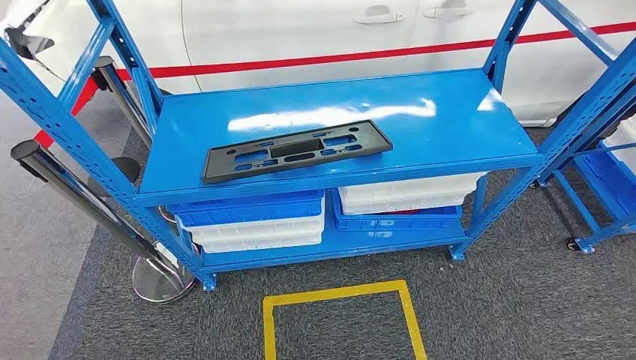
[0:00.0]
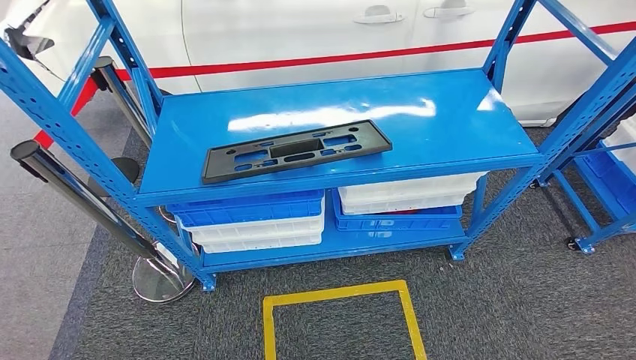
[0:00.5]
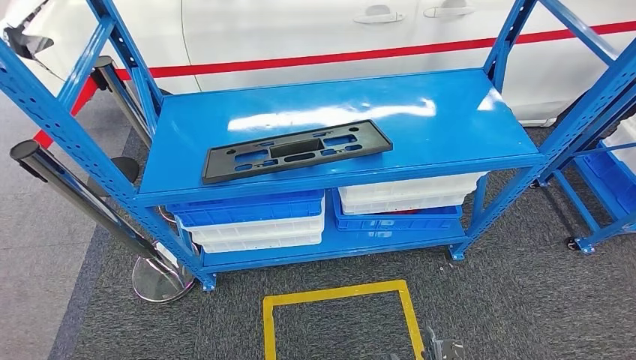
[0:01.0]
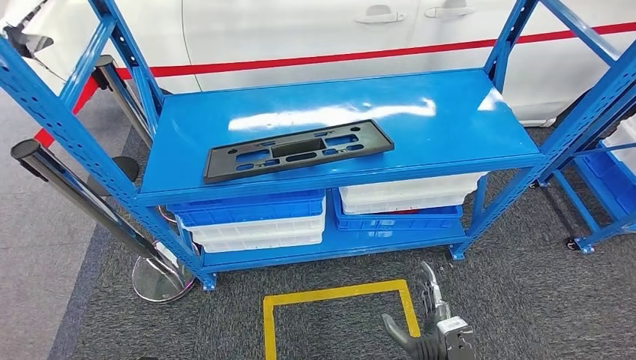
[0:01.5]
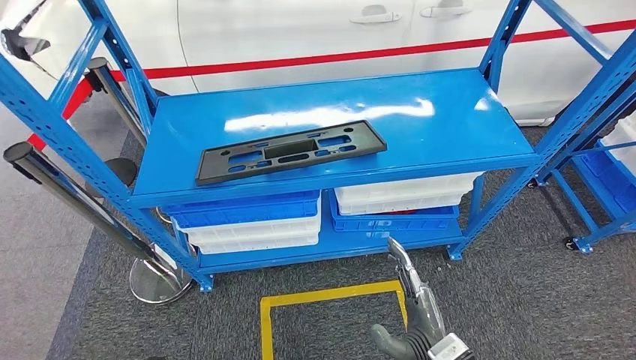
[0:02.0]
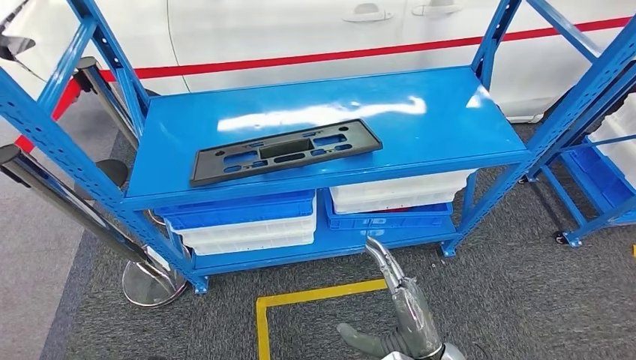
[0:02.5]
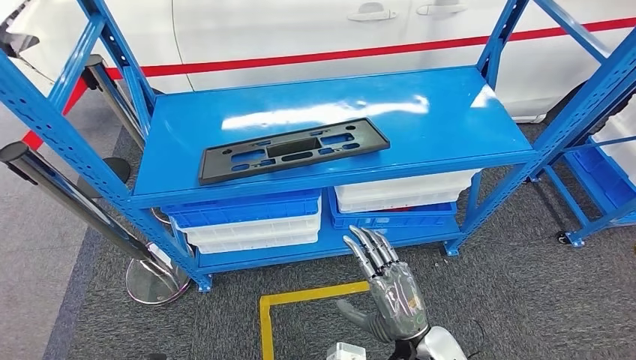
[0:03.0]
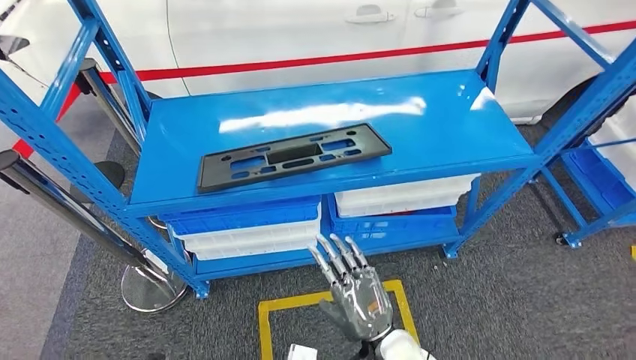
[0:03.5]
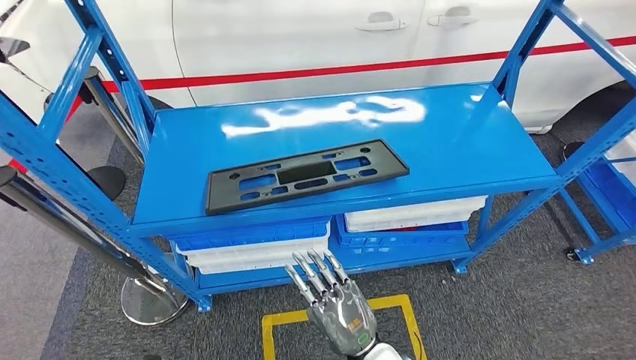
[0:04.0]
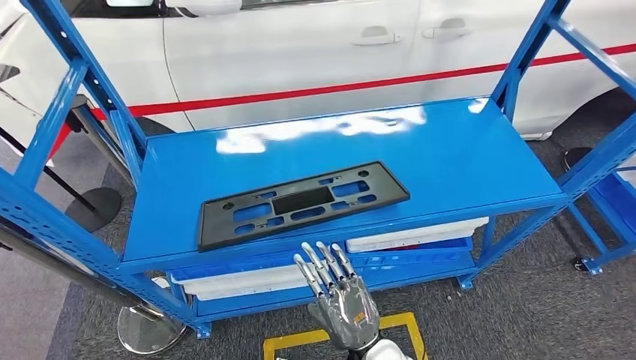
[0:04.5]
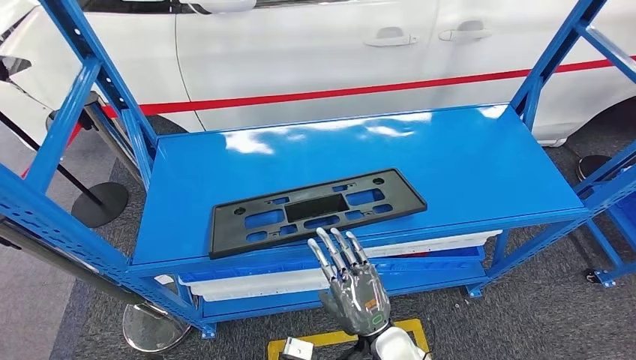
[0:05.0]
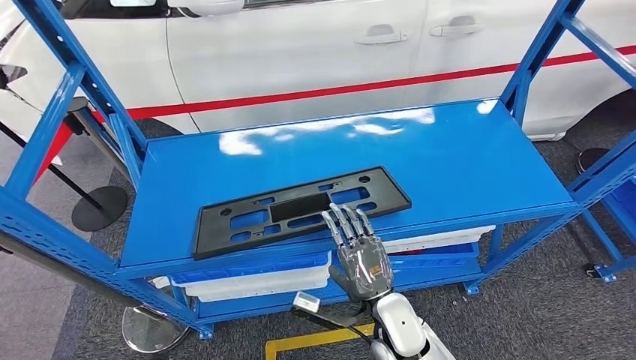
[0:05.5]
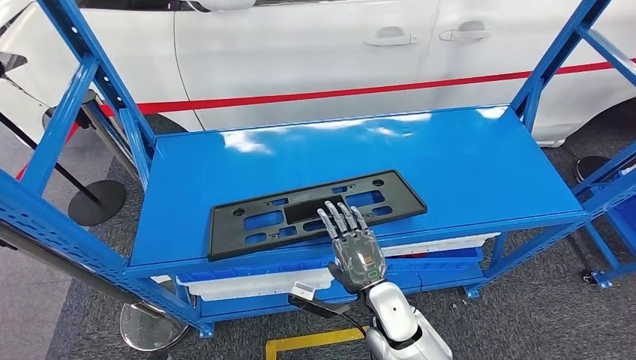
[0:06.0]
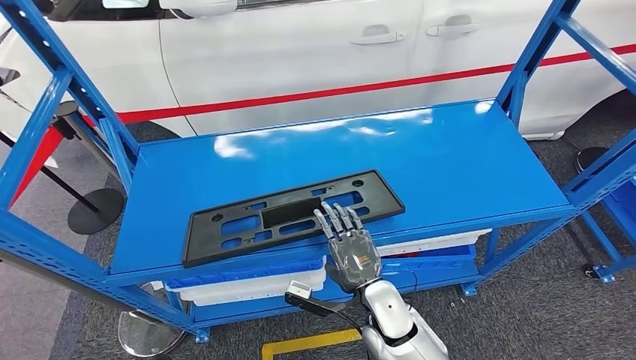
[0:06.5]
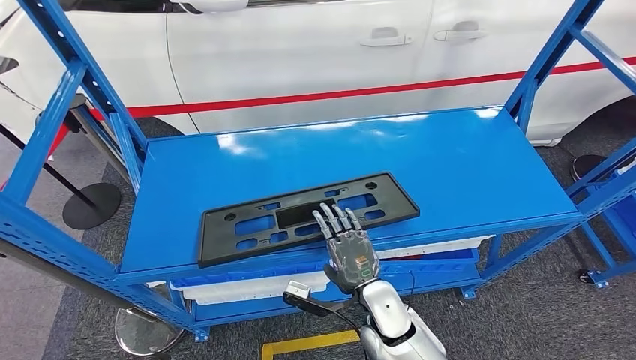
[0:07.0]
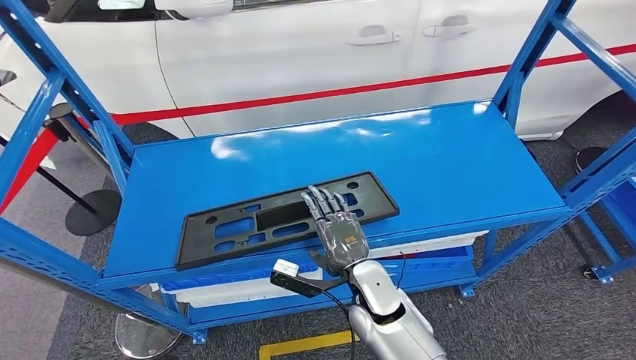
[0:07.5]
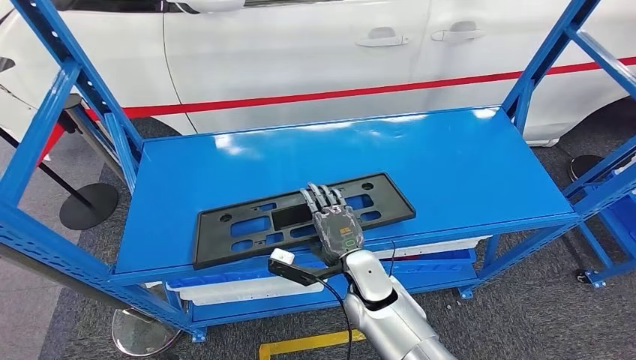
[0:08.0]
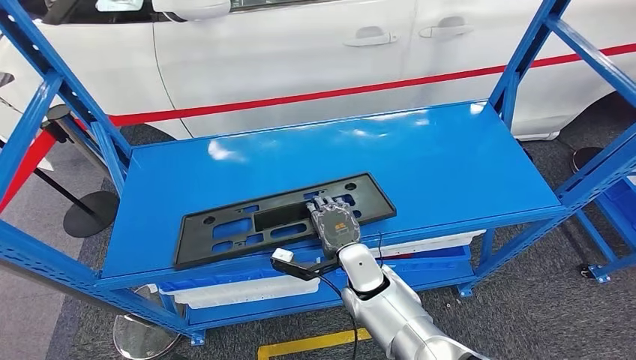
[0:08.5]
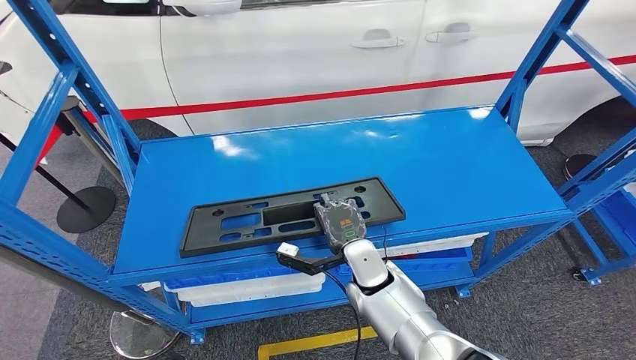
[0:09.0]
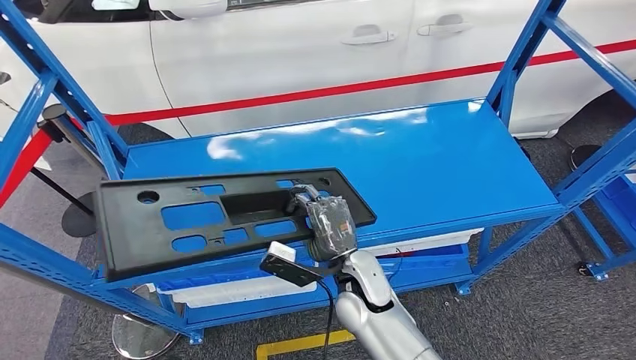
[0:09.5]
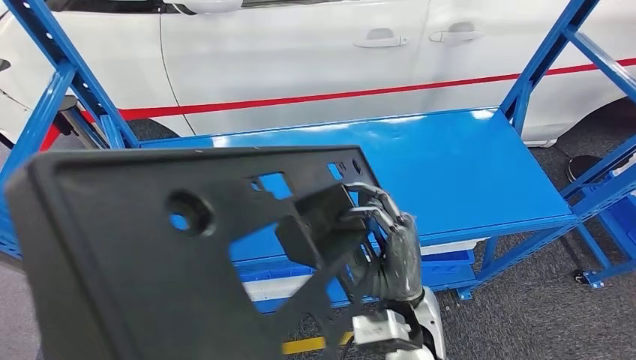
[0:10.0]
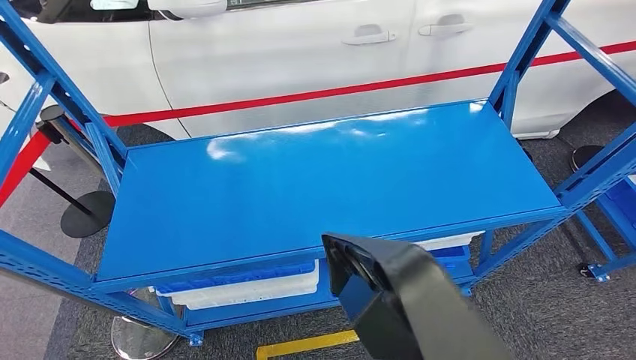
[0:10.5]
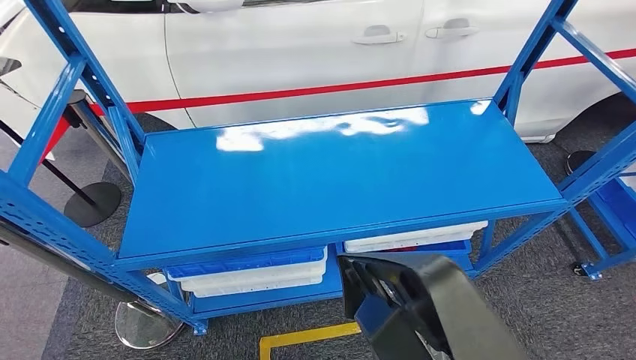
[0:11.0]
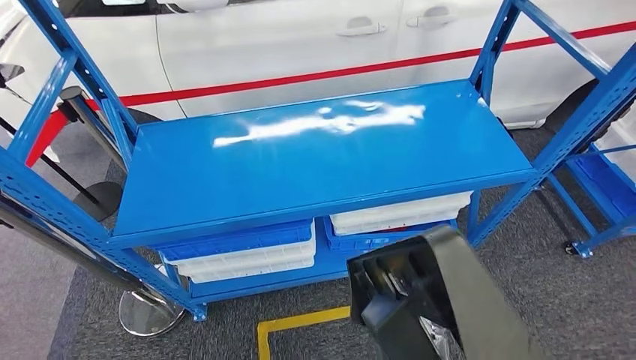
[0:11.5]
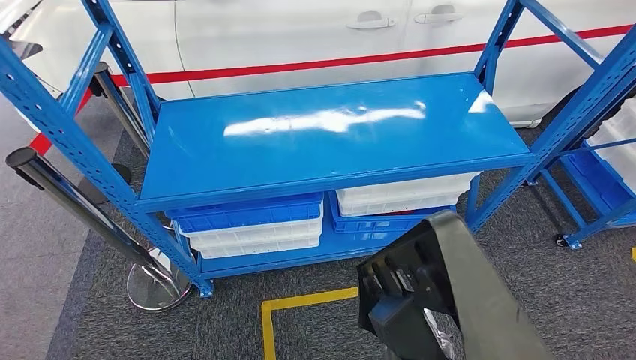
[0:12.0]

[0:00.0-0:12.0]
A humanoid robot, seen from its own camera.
Step, 0:00.0 to 0:11.0: Pick up the large material from the shelf.

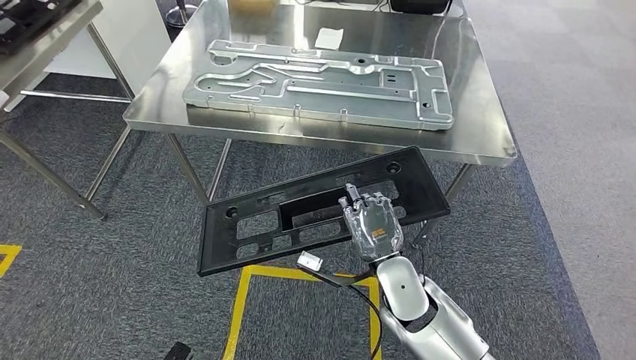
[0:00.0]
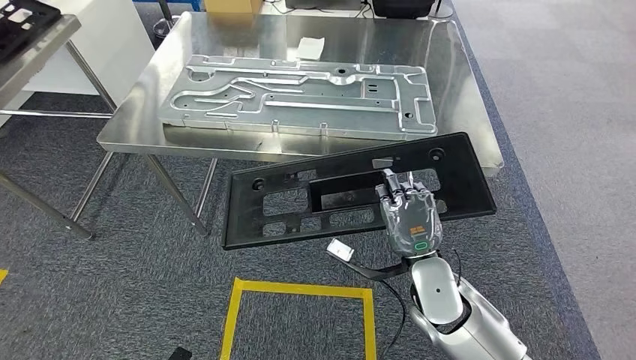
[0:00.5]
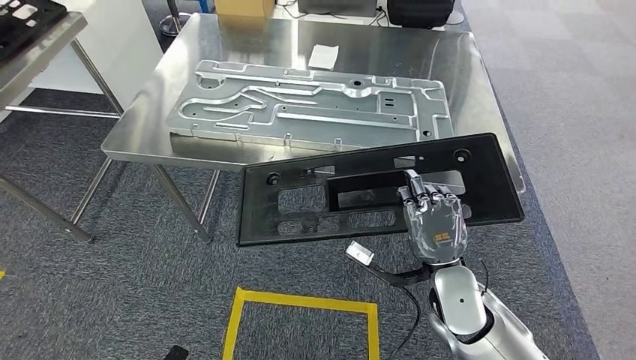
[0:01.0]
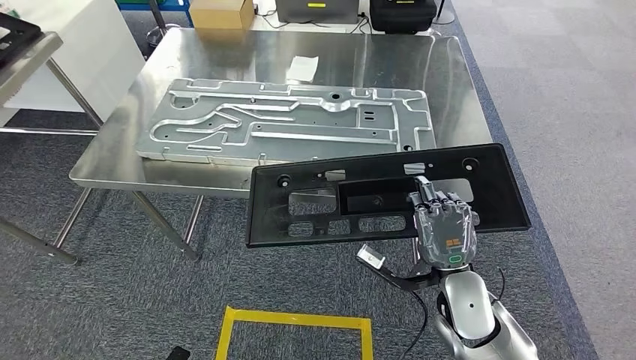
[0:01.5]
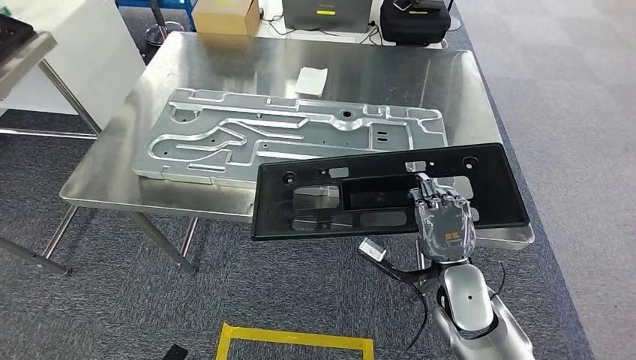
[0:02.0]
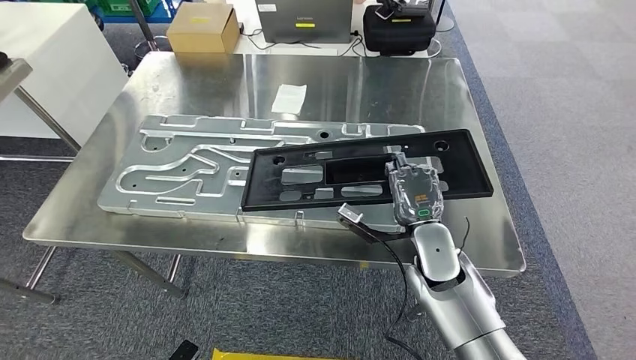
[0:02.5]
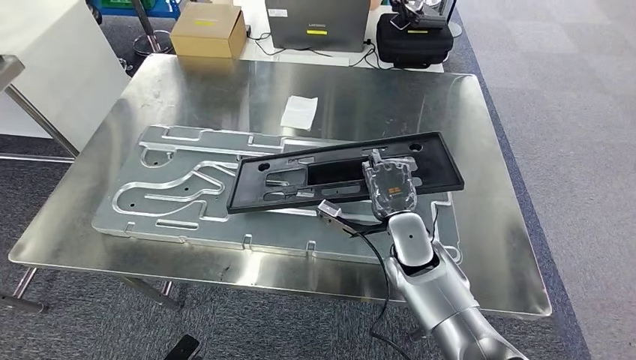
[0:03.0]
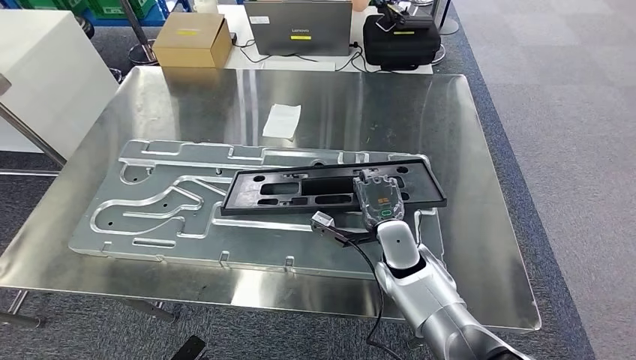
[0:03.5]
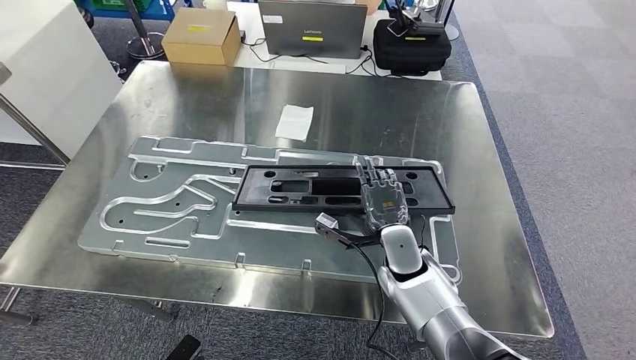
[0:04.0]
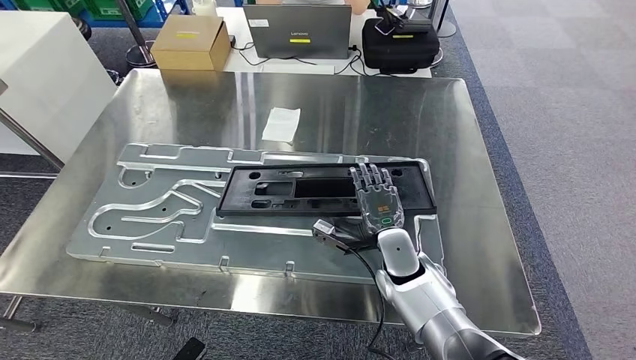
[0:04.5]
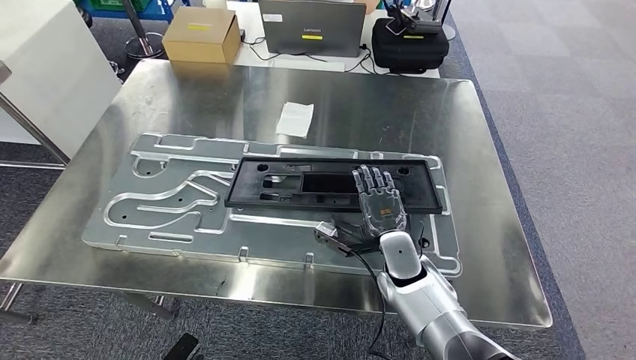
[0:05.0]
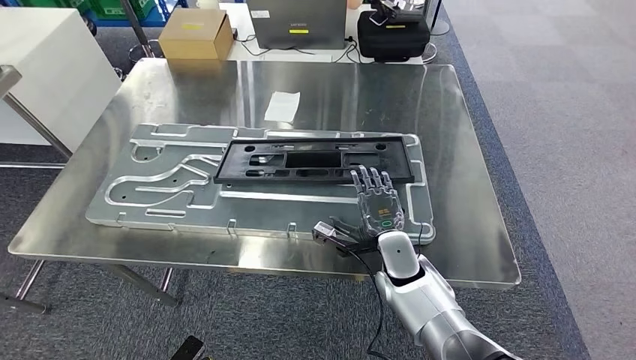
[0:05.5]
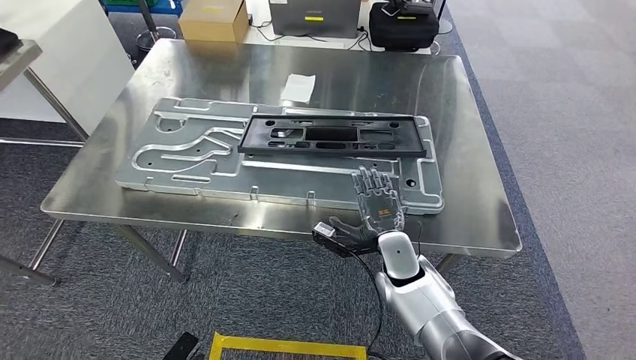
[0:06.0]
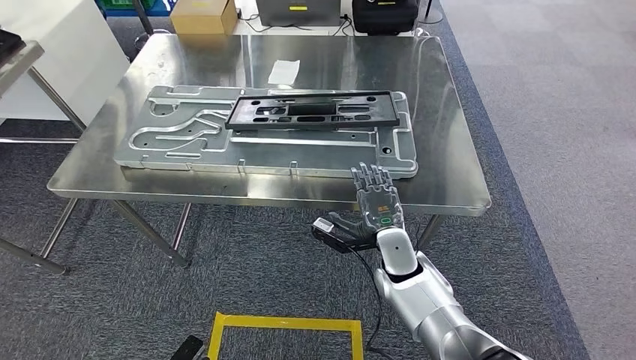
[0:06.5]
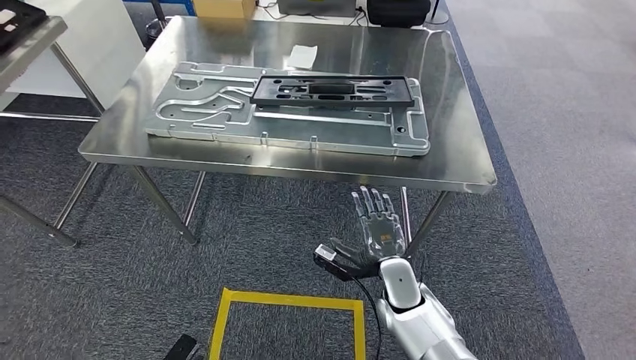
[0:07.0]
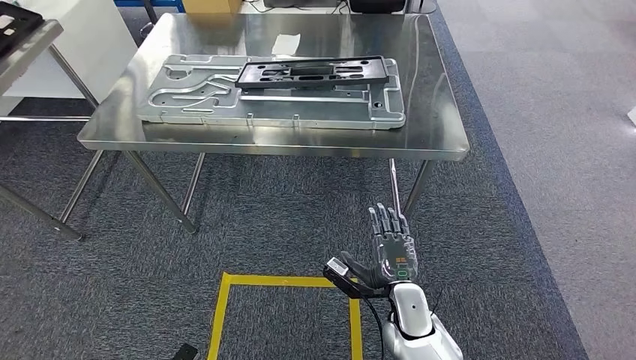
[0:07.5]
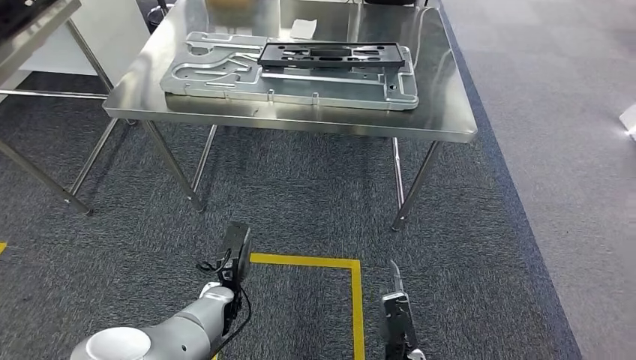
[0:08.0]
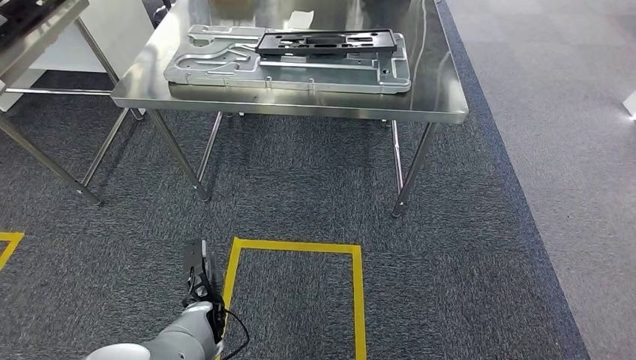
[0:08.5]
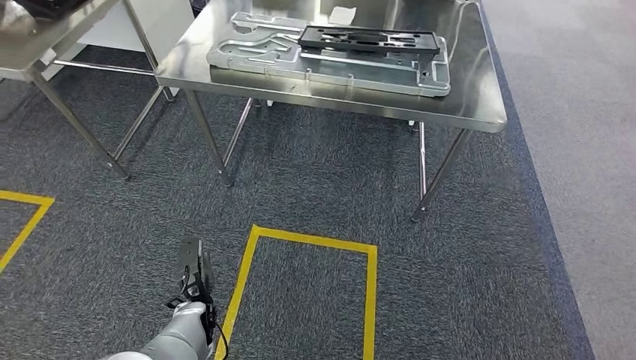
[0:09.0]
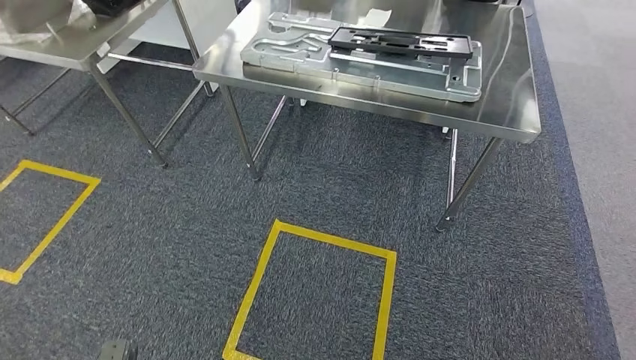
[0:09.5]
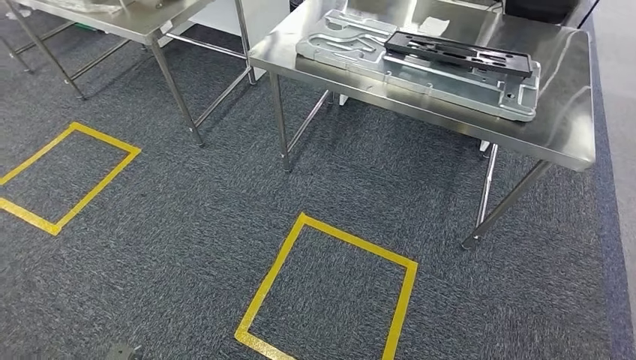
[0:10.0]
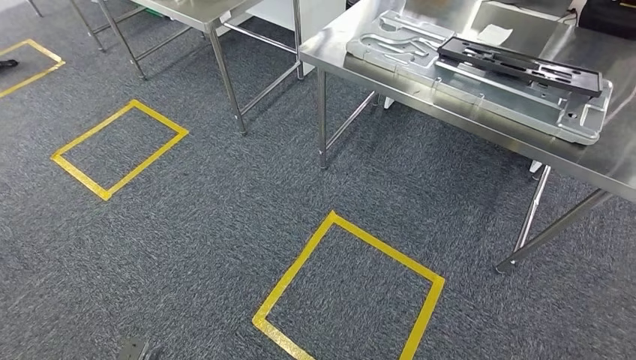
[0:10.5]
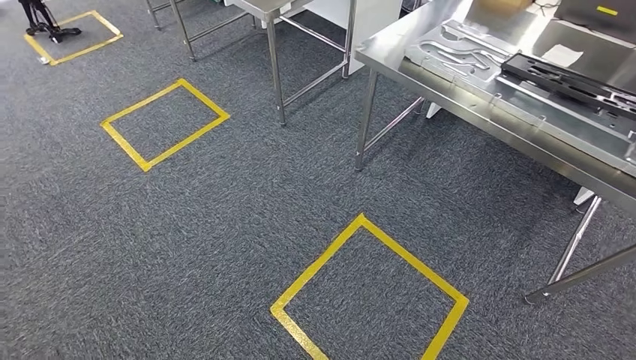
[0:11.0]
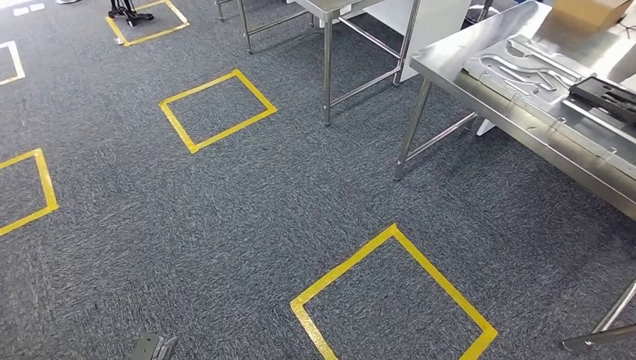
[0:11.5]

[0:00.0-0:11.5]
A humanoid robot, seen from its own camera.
Step, 0:00.0 to 0:02.5: Move the large material to the front of the workbench.
Step, 0:03.0 to 0:09.0: Insert the large material into the corresponding hole on the workbench.
